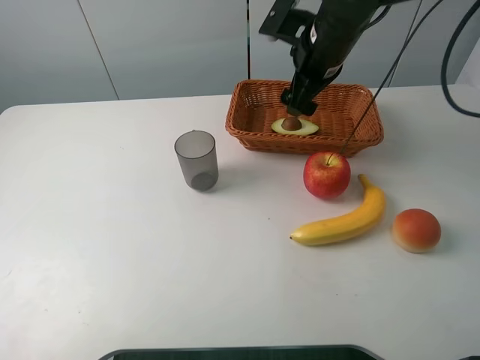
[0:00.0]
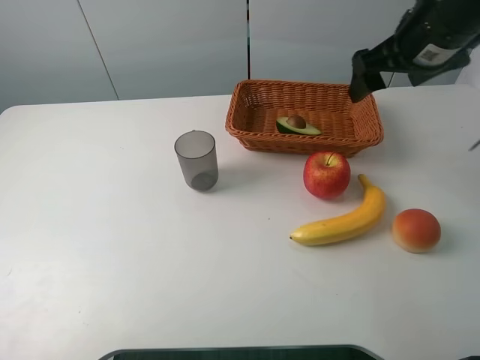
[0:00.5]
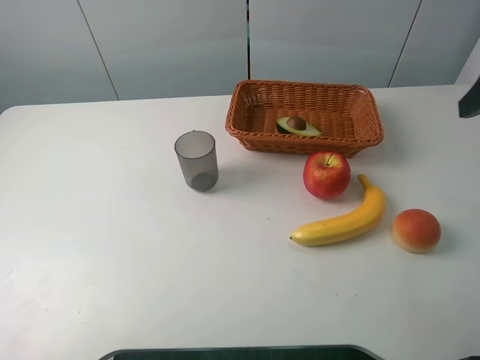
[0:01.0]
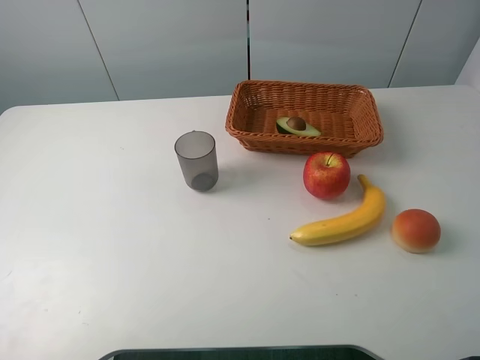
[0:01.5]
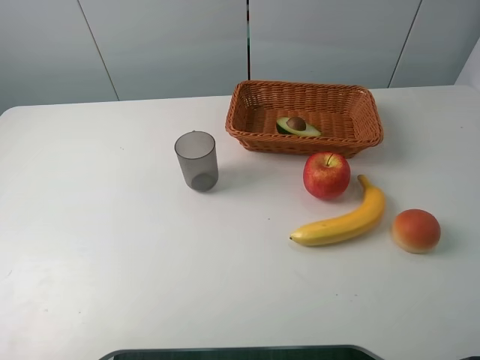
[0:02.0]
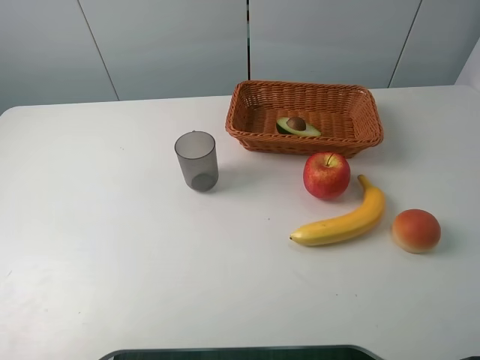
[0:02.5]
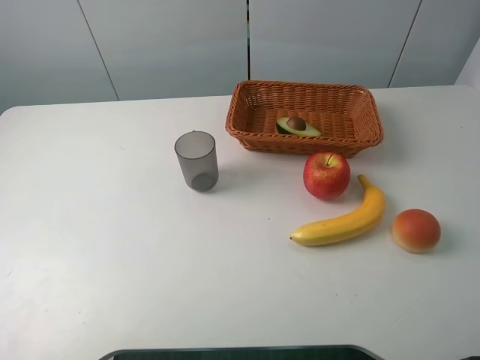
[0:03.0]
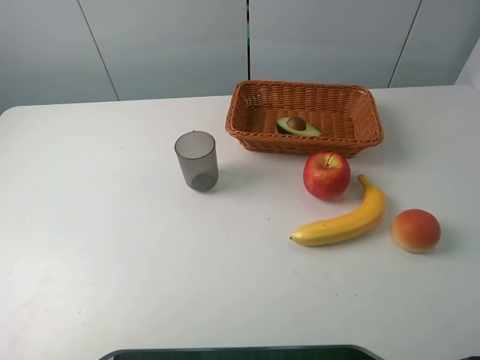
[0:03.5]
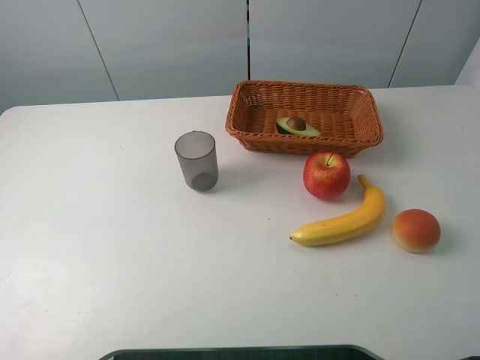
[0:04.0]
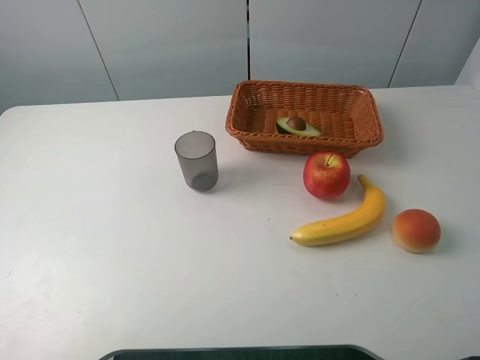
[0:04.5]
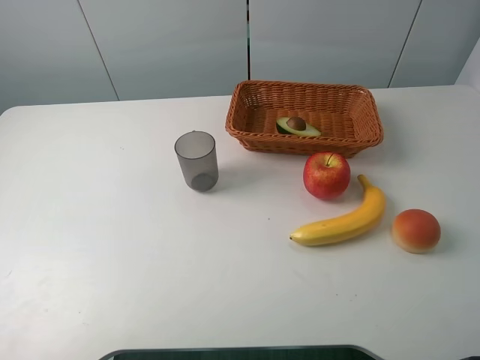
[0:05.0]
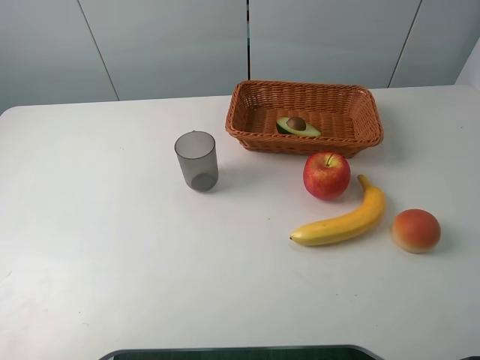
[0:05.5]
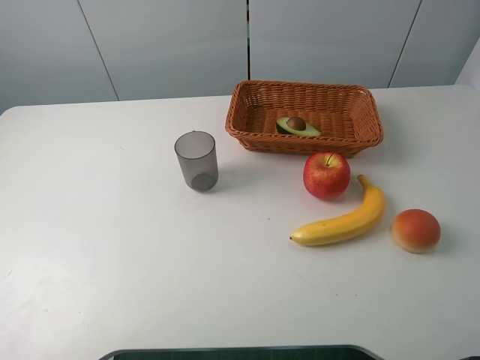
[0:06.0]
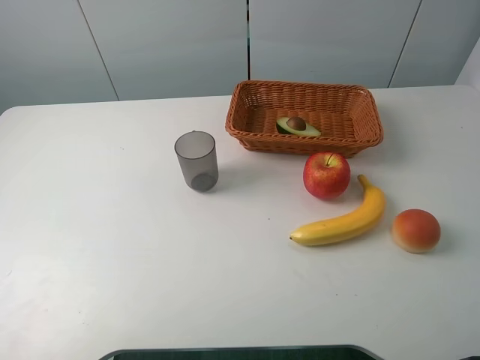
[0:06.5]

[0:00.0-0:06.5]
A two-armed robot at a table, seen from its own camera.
Task of the whole recording: randomly pick up an item from the table and put it in the basket.
0:00.0 to 0:02.0: The right gripper is displaced backward and to the right by approximately 40 cm.
